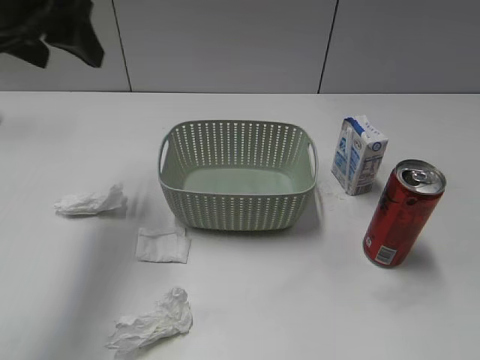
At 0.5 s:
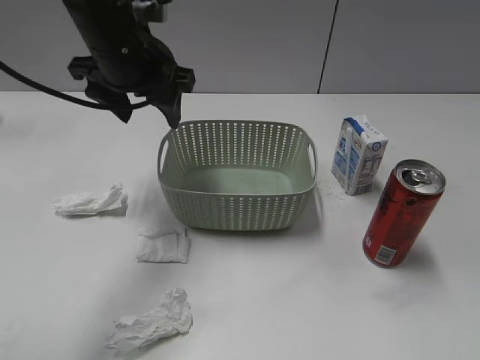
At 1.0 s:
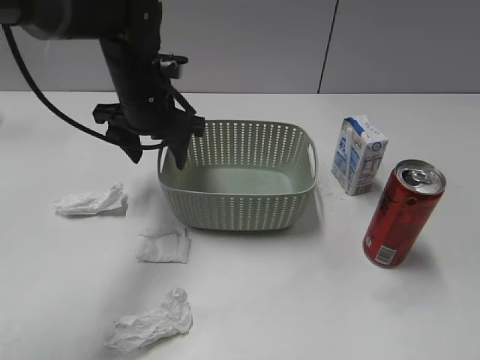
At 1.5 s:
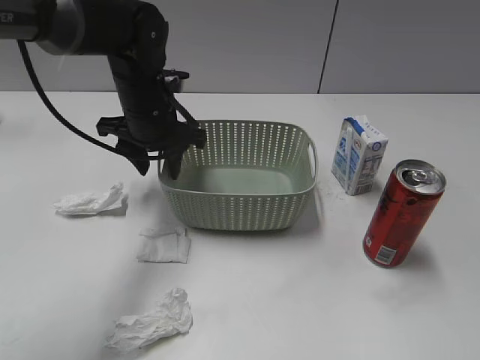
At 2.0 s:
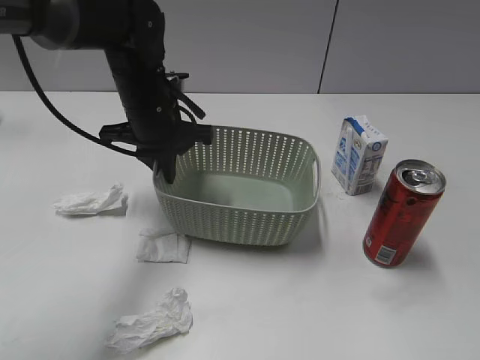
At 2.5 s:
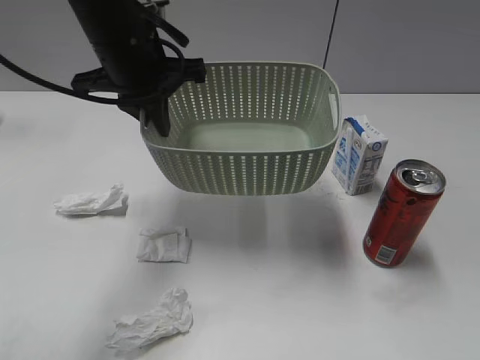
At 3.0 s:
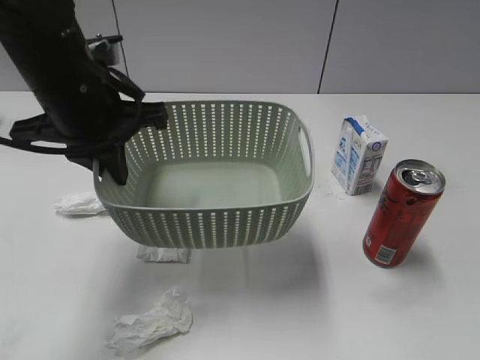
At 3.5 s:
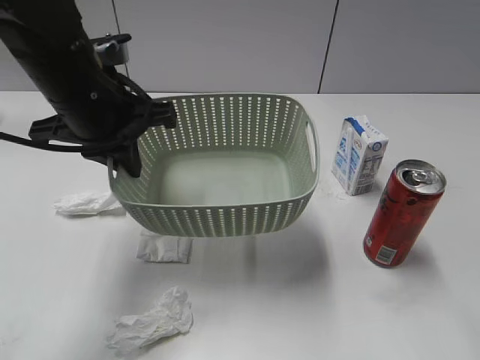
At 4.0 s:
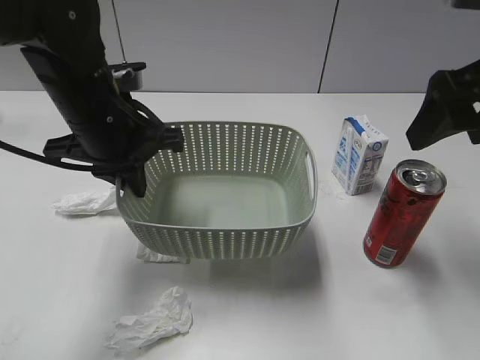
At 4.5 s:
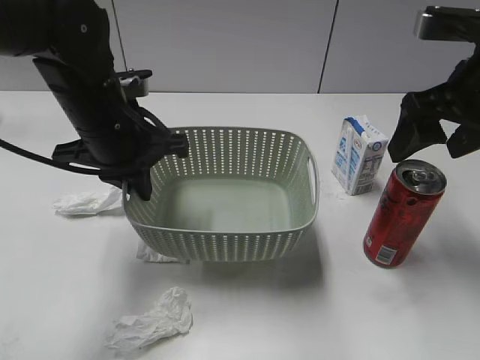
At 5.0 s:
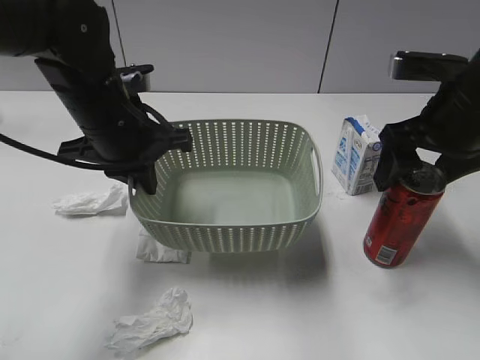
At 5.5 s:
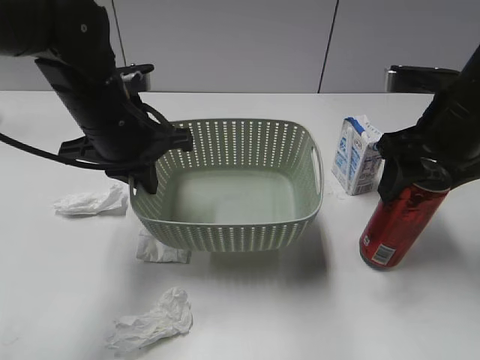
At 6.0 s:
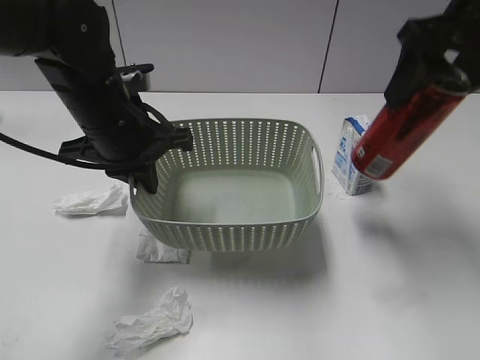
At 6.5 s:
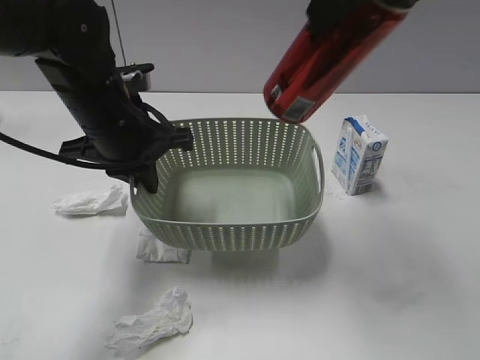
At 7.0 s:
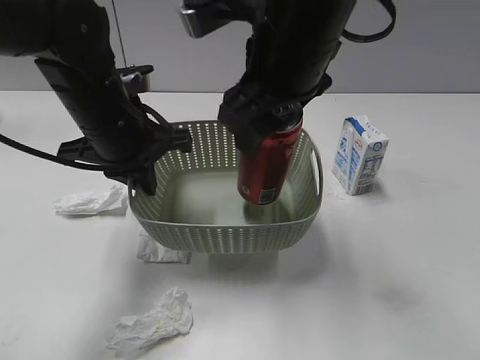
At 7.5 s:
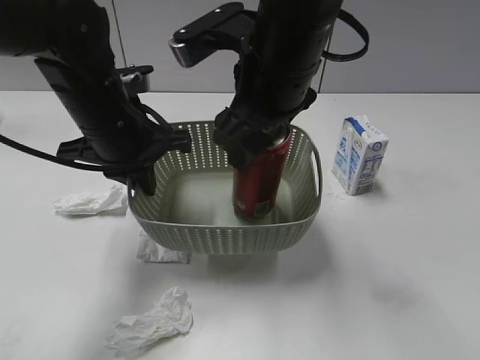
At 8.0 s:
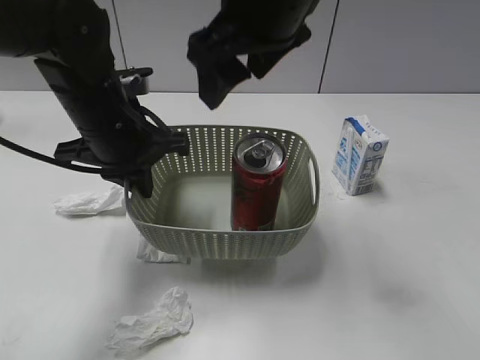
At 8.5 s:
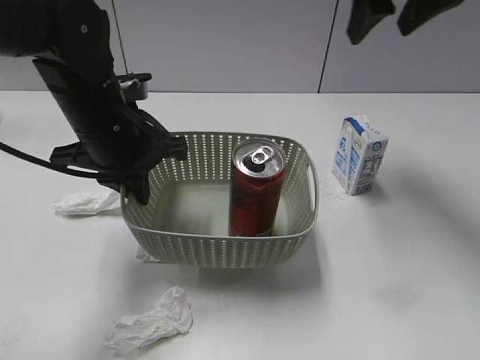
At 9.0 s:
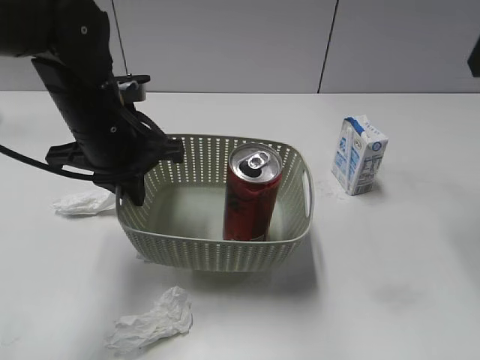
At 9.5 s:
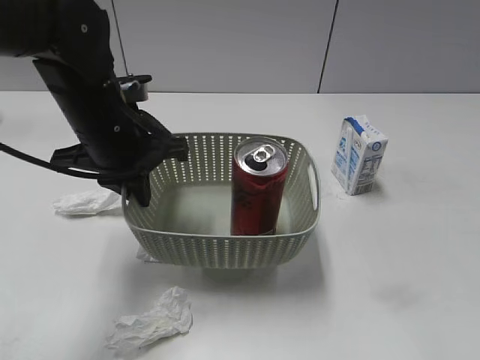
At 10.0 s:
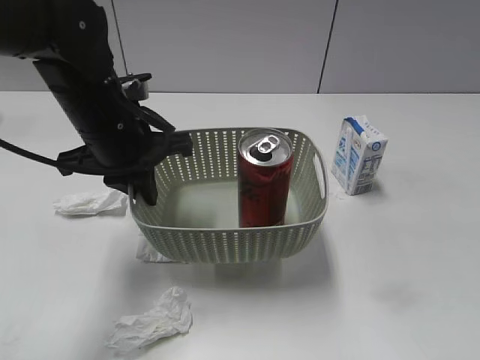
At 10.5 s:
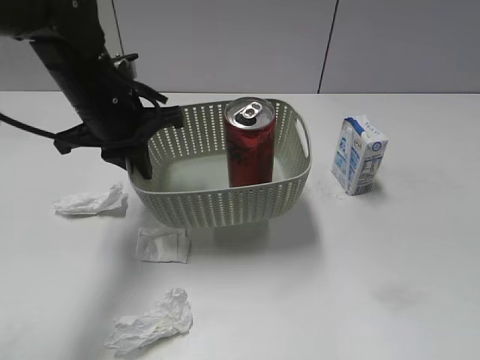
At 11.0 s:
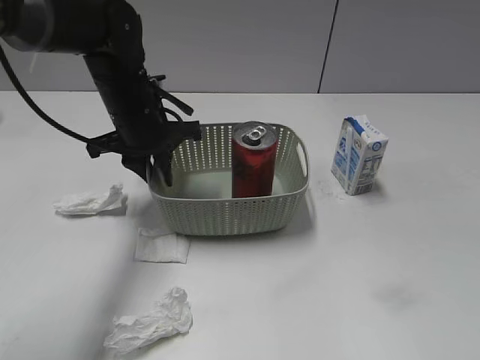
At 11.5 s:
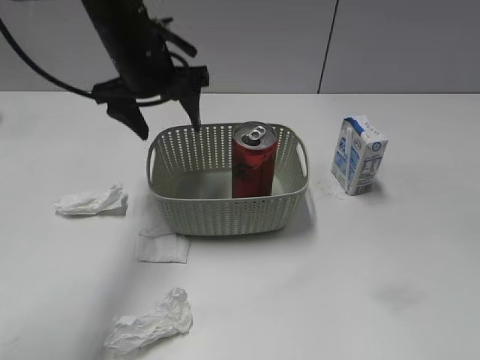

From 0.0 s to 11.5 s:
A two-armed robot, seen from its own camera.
Step, from 0.0 s to 1.5 s: Grasp the basket with left gripper.
Step, from 2.0 s to 3.5 s: Lift the basket with left gripper.
Step, from 4.0 s to 5.5 s: Grasp the cola can with right gripper.
Step, from 6.0 s to 7.5 s: Place the cola can in the basket with right gripper.
Step, from 8.0 s to 11.0 s: Place the basket on the table with left gripper.
From 0.0 s to 2.0 s: The left gripper goes some 20 cm downward, to the right and forward, and closes up.
From 2.0 s to 4.0 s: The left gripper travels backward by some 10 cm, while the right gripper moves forward, some 25 cm.
From 4.0 s to 6.0 s: The right gripper heads forward, covering approximately 5 cm, moves some 10 cm downward and comes back, and closes up.
From 6.0 s to 7.5 s: The right gripper goes approximately 20 cm to the left.
From 7.5 s to 9.5 s: The right gripper is displaced to the right and backward by approximately 30 cm.
From 9.5 s to 11.5 s: The left gripper is displaced forward by roughly 10 cm, and opens; the right gripper shifts approximately 15 cm backward.

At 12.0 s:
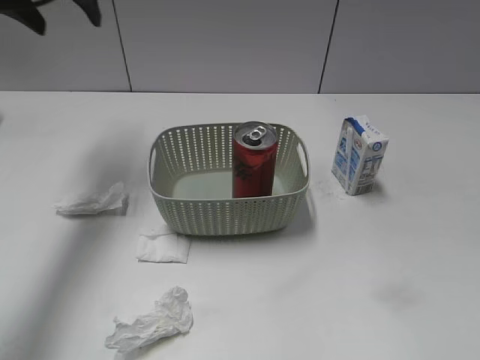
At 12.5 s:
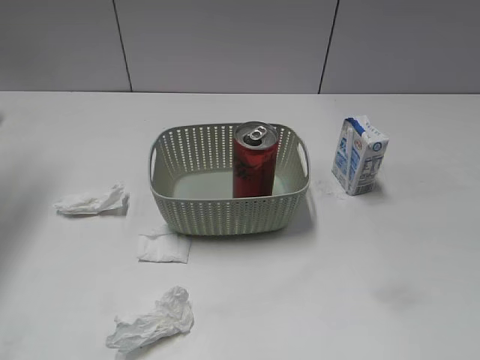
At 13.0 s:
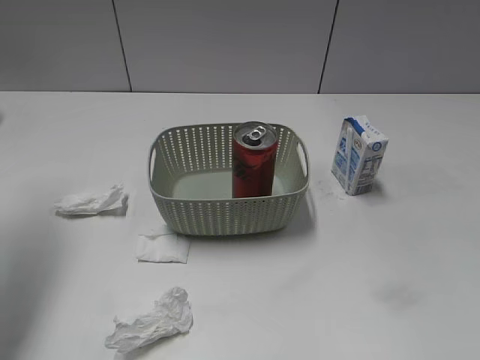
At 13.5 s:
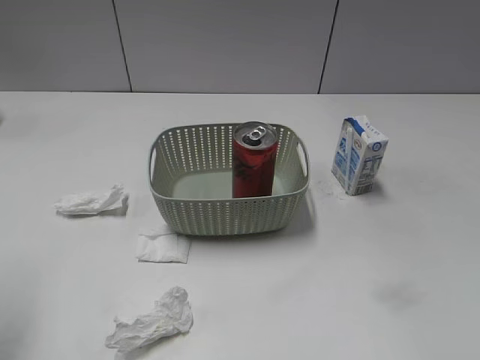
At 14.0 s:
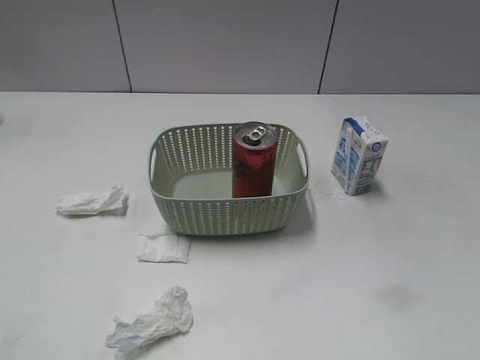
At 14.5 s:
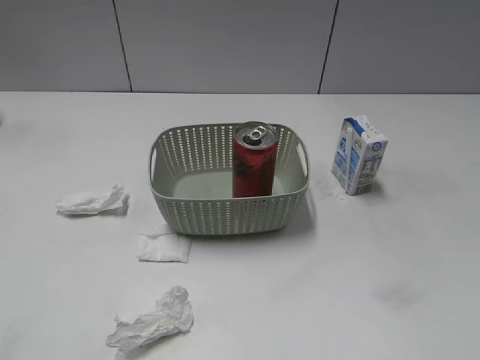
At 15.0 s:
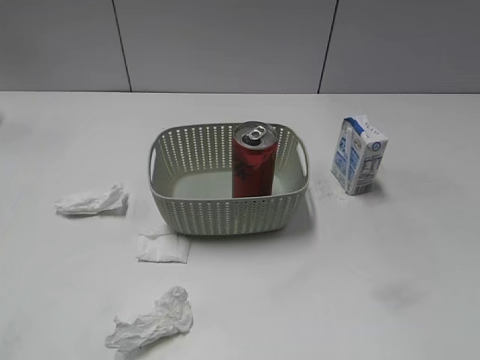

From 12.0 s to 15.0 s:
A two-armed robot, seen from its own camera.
From 12.0 s to 13.5 s: The left gripper shifts roughly 25 cm backward.

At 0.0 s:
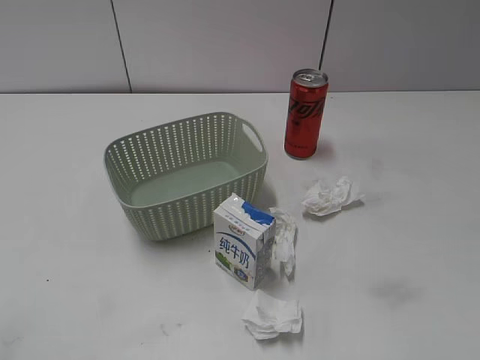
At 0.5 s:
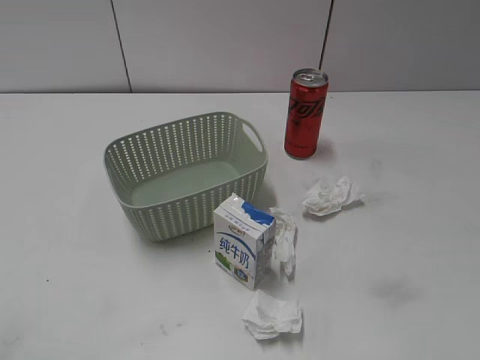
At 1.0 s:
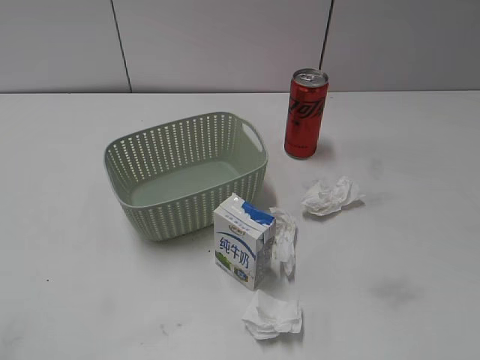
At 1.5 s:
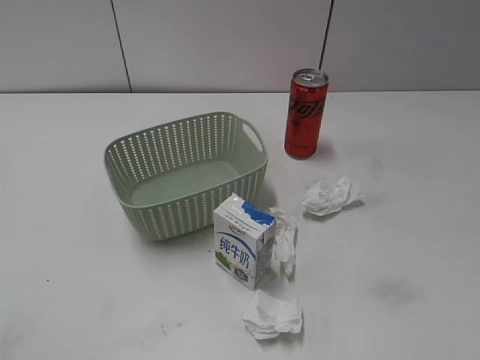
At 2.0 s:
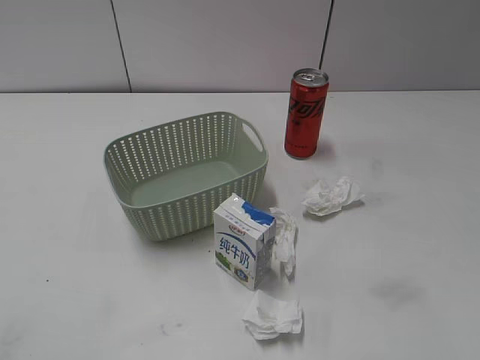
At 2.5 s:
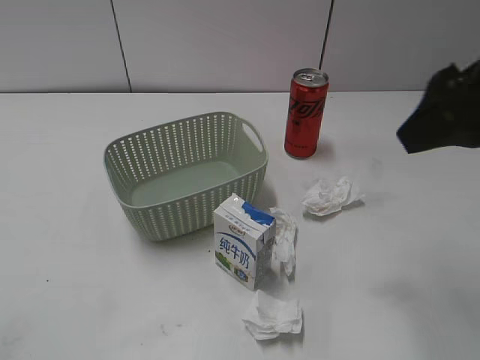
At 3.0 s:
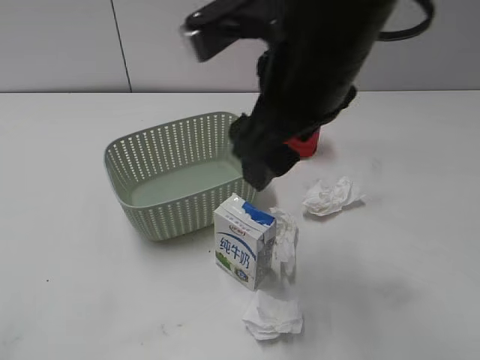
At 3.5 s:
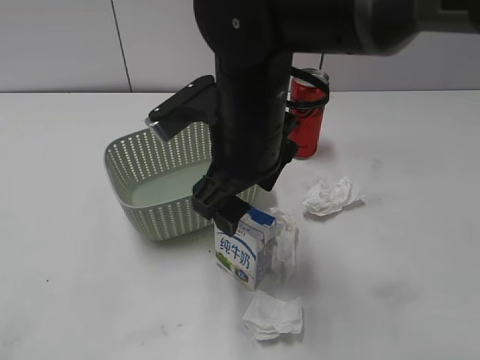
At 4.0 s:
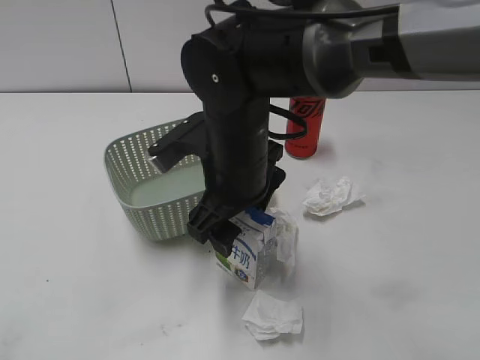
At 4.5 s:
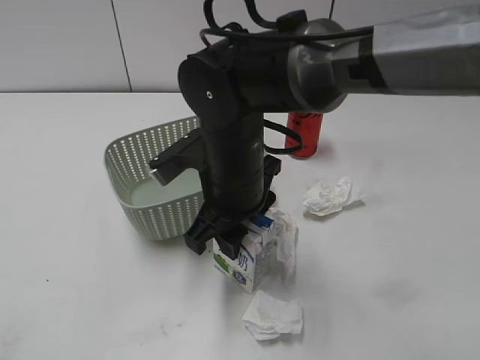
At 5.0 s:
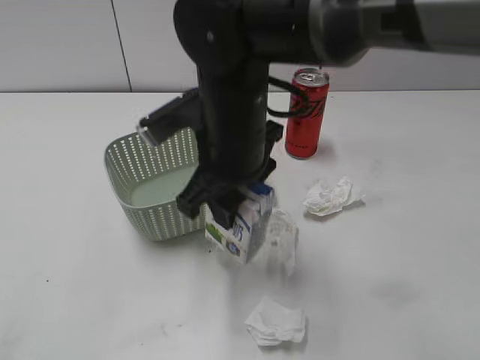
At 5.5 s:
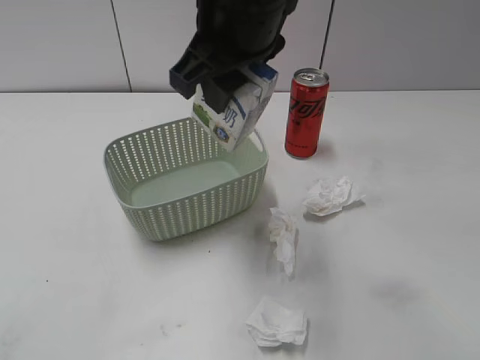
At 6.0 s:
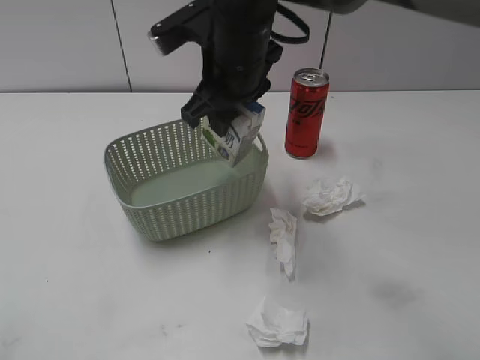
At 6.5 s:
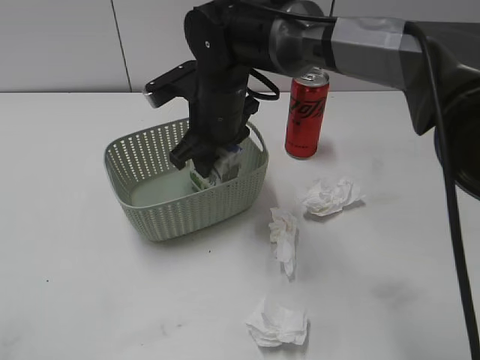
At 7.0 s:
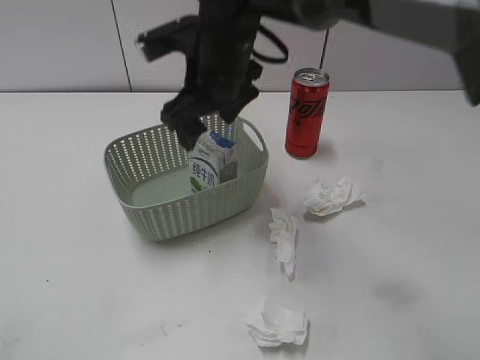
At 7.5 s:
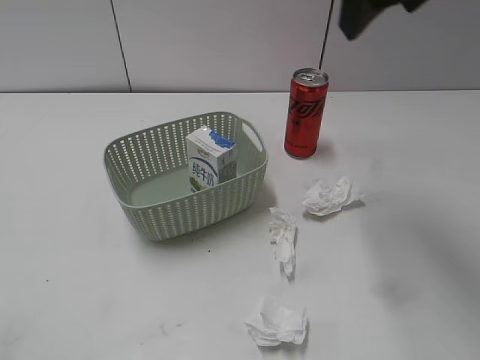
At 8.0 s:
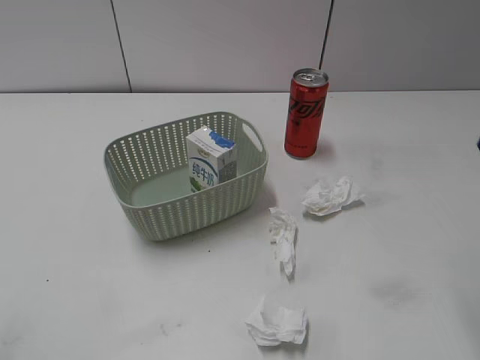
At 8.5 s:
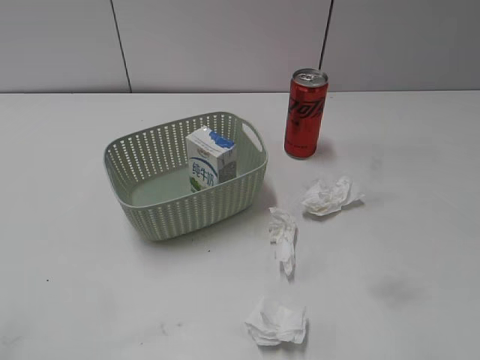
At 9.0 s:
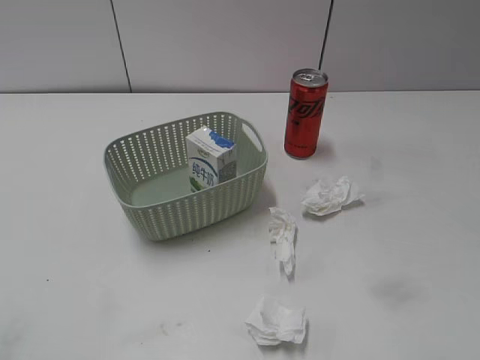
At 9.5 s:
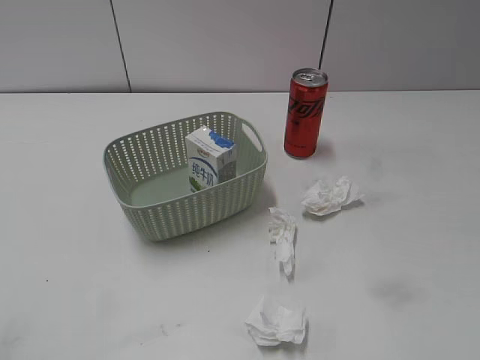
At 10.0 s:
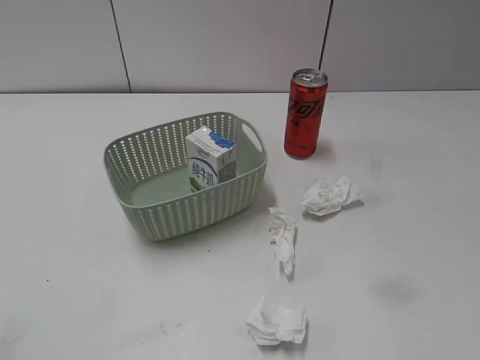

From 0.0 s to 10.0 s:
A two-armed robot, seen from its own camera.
Step, from 2.5 s to 4.5 s: Grasp the milk with right gripper.
Step, from 5.0 s to 7.0 s: Place the milk in the basket with right gripper.
From 2.0 s to 4.0 s: The right gripper shifts roughly 35 cm to the left, forward and downward.
From 4.0 s to 6.0 s: The right gripper moves forward and upward, about 10 cm, and closes up.
From 6.0 s to 8.0 s: The right gripper goes about 30 cm to the right, backward and upward, and opens its fingers.
